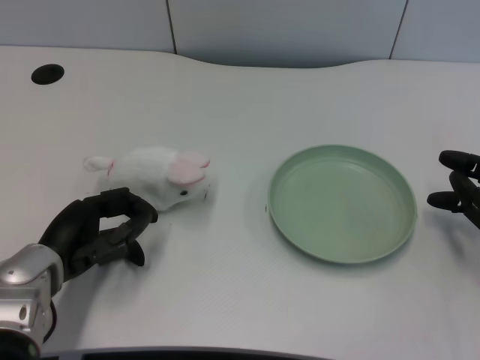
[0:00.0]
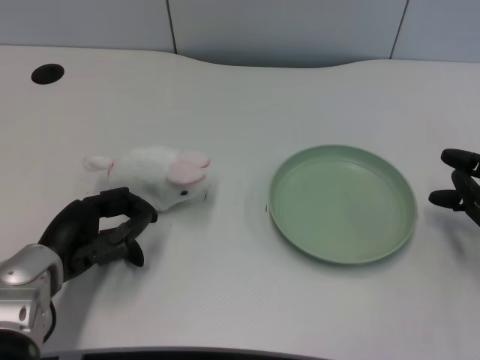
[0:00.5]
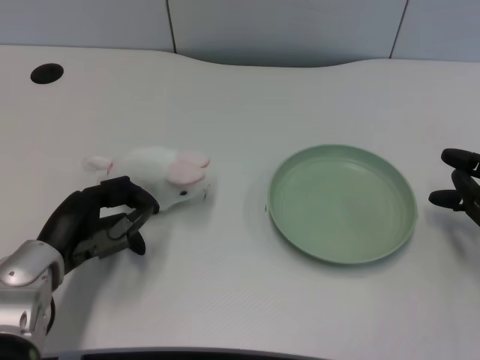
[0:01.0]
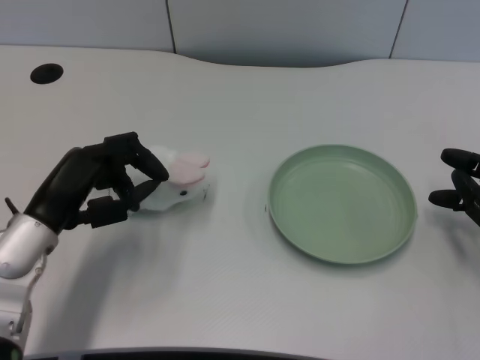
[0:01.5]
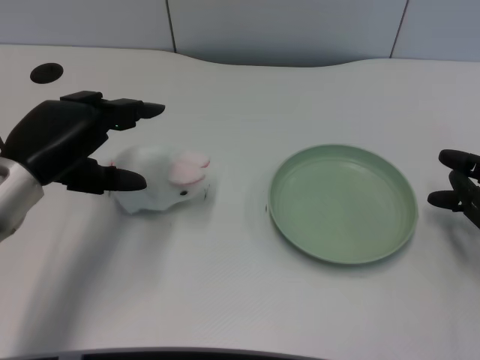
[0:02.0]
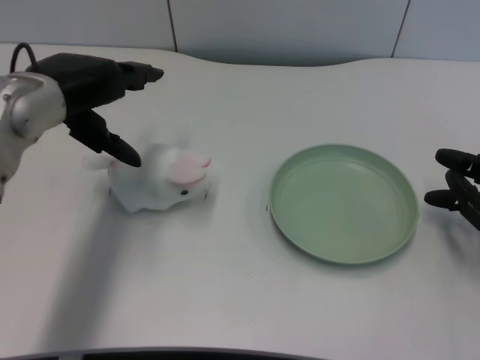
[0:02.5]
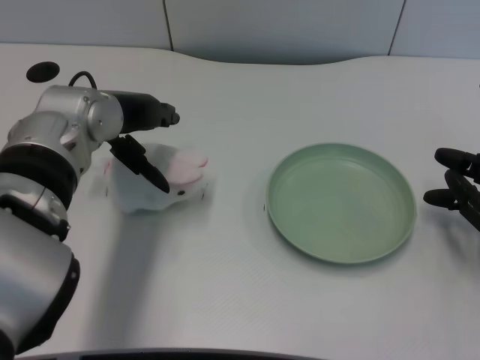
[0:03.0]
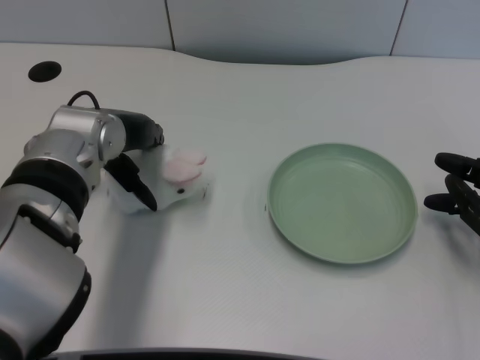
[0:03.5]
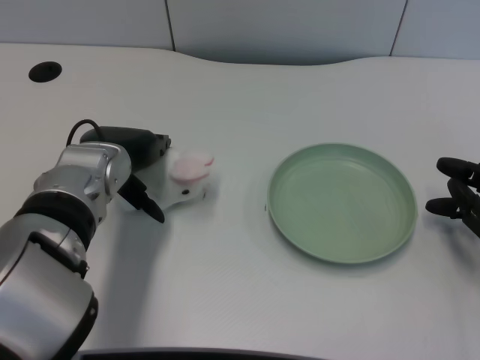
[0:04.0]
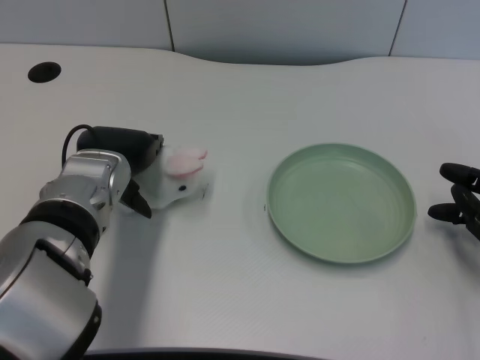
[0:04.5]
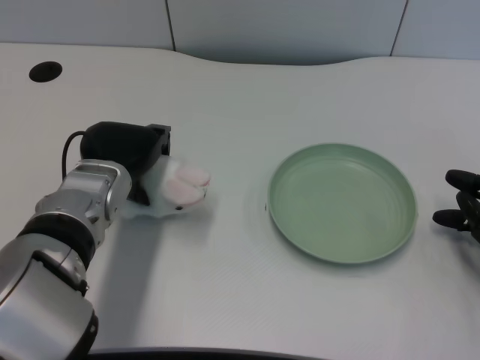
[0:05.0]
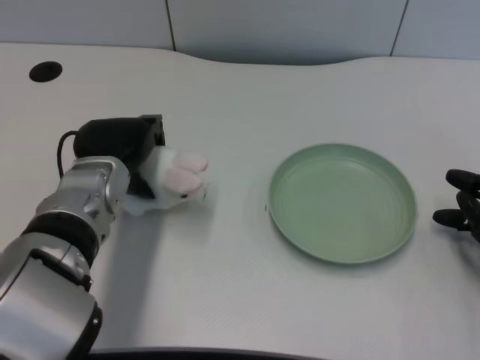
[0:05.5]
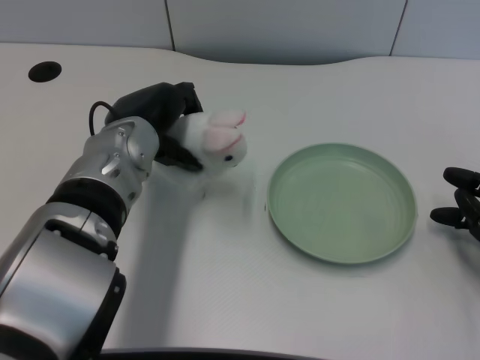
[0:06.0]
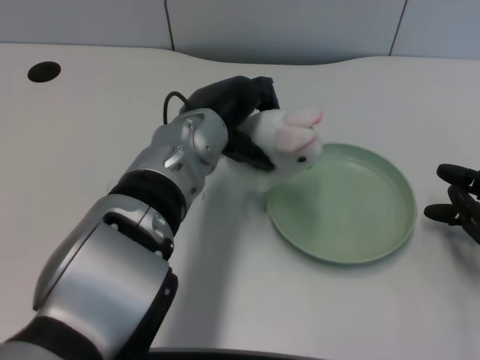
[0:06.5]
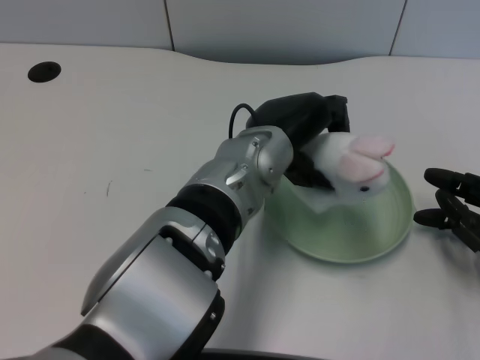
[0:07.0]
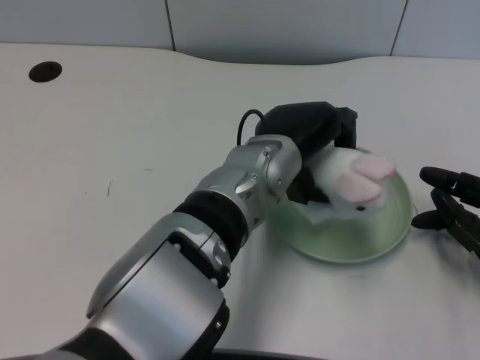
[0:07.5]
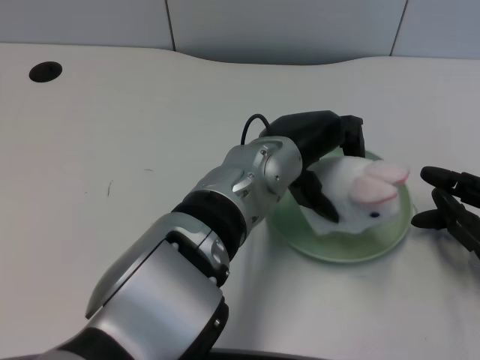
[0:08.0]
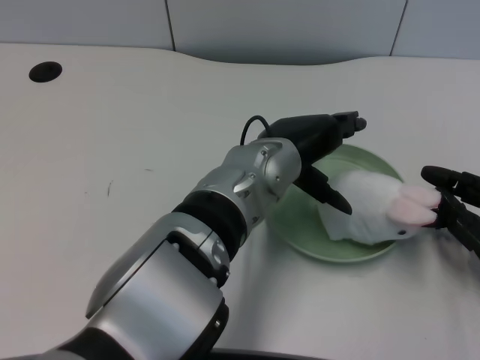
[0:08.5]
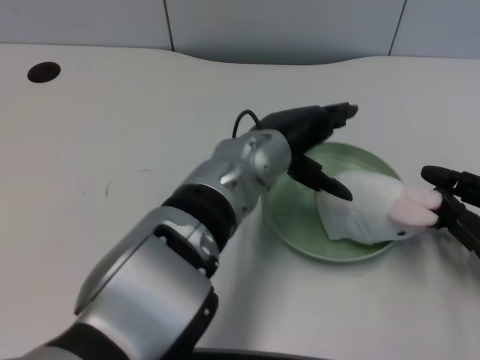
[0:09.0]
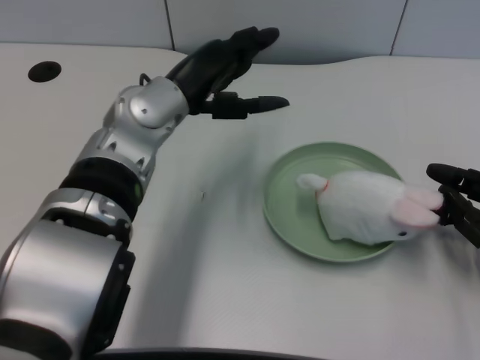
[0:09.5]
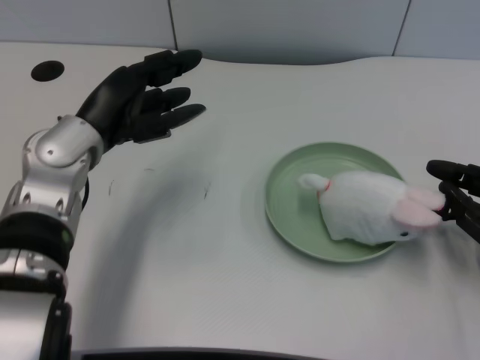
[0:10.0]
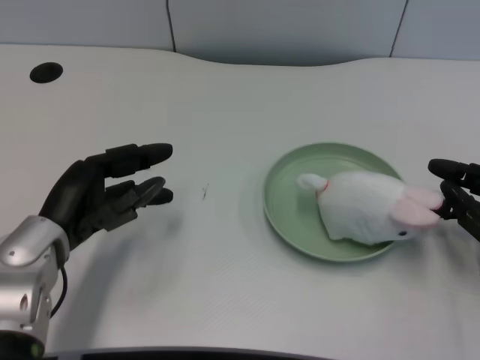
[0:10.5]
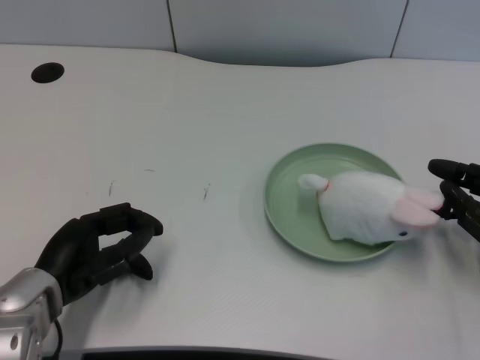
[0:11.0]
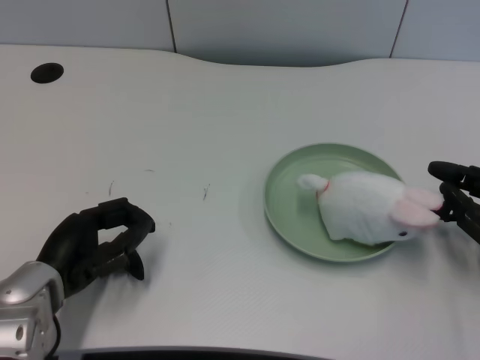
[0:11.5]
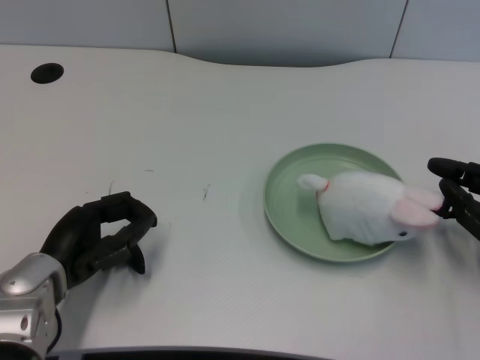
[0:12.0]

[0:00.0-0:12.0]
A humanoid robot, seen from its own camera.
Task of the whole recording: pick up the rabbit doll from the table and place it on the plate.
Step, 0:01.0 to 0:05.5: Grasp the rabbit doll with the left gripper.
Step, 0:06.0 to 0:08.0: Place the rabbit doll into the plate with the left gripper.
0:02.0 to 0:04.0: The left hand heads to the right, covering approximately 10 cm, and reaches about 5 cm upward, then returns.
0:06.0 to 0:08.0: The left hand shifts roughly 15 cm to the right.
0:08.0 to 0:10.0: The left hand shifts roughly 20 cm to the left.
0:10.0 to 0:12.0: The left hand heads downward and backward, covering roughly 15 cm.

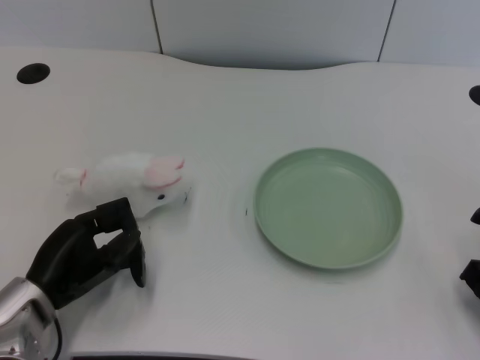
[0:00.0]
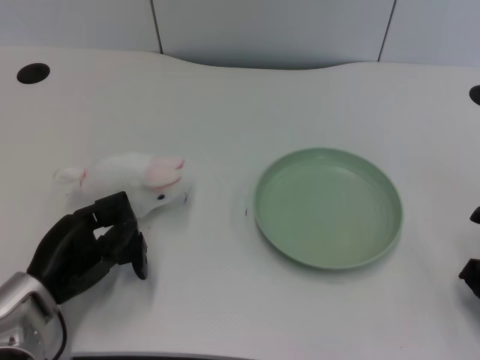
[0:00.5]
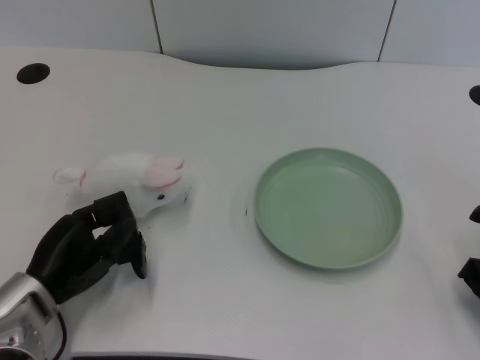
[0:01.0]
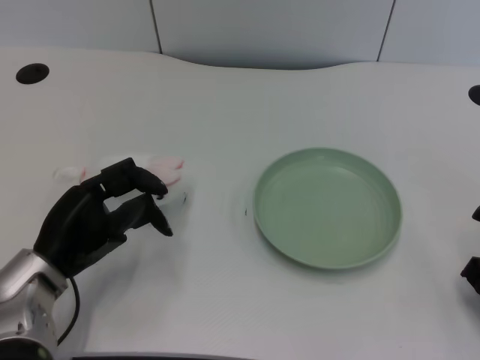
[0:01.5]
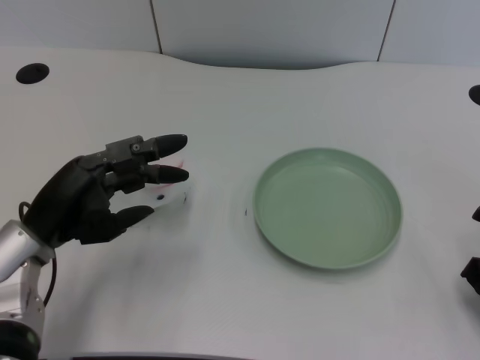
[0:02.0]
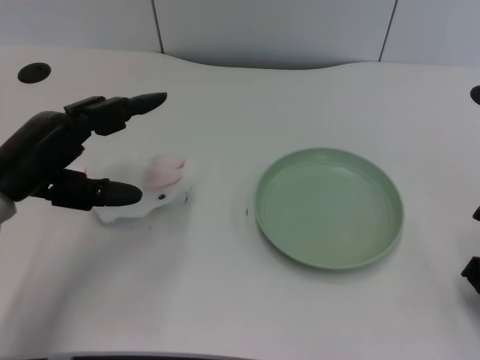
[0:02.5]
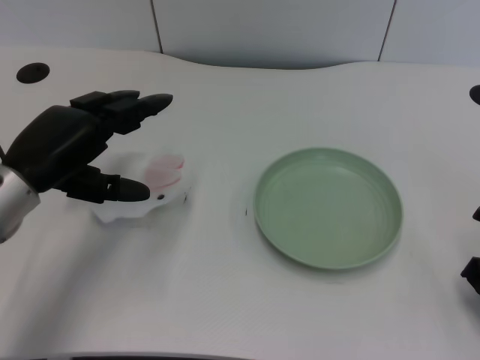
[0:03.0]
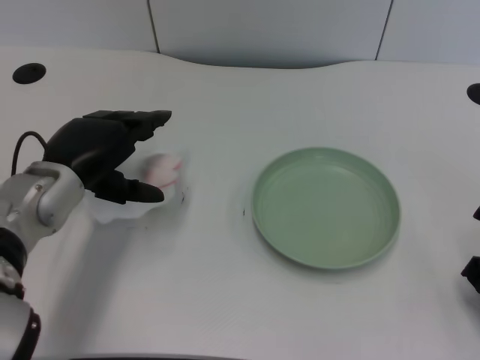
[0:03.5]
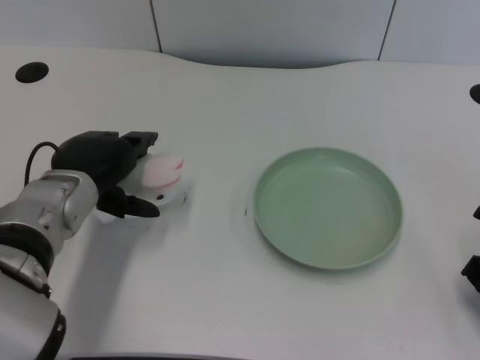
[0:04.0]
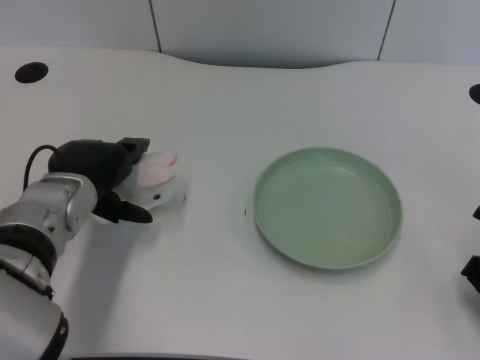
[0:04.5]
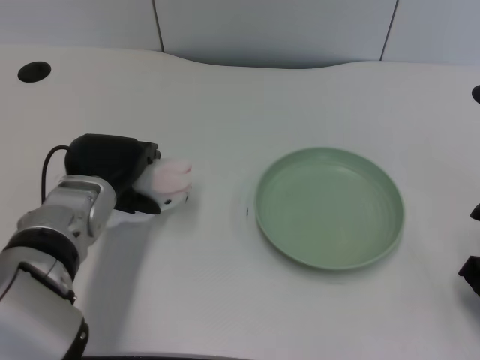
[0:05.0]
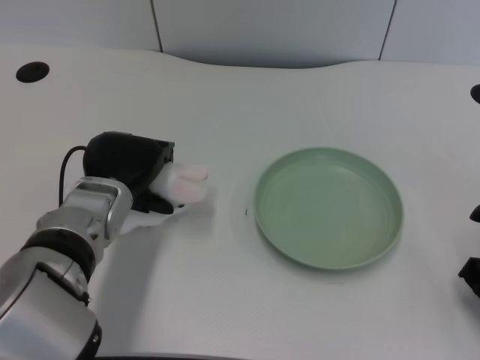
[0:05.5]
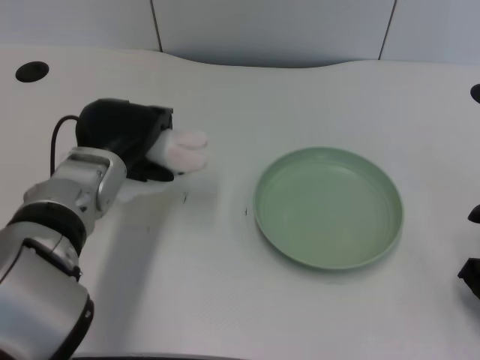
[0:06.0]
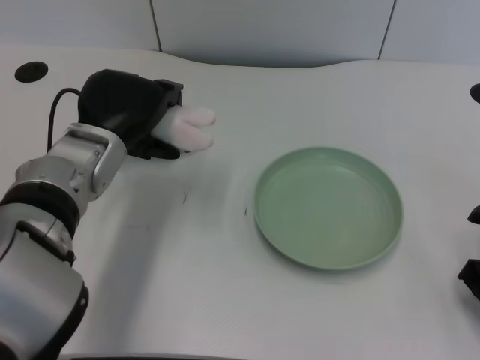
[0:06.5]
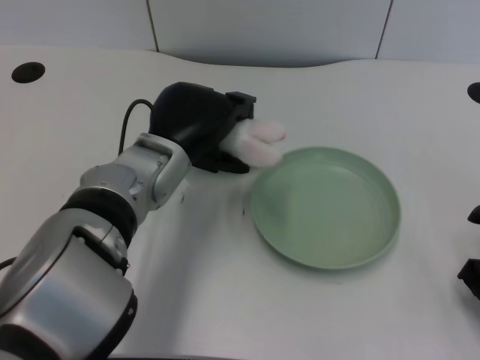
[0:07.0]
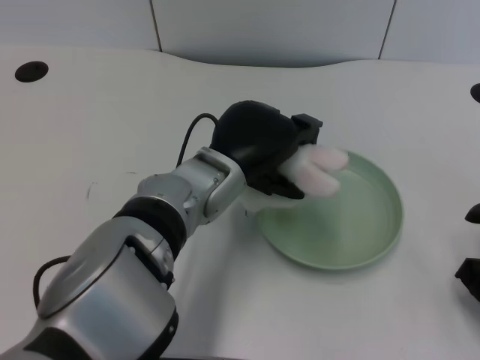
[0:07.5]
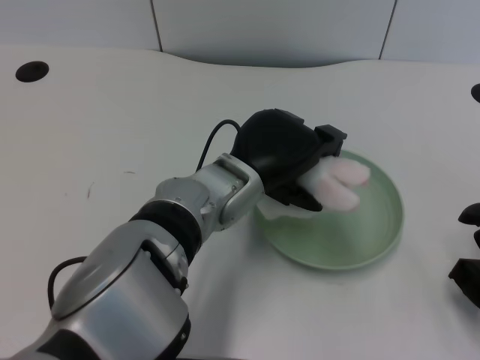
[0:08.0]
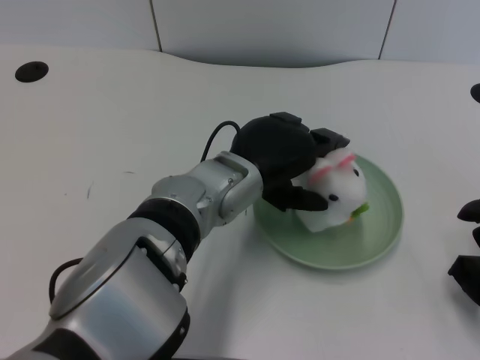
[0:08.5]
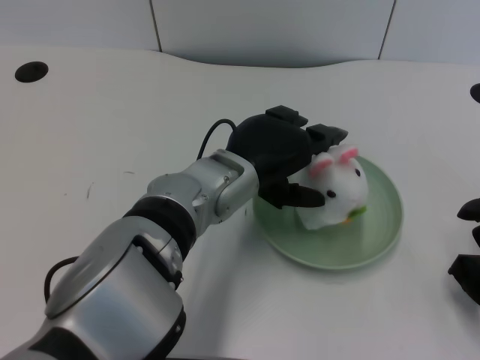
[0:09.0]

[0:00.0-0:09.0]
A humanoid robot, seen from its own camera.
Task of the whole recording: pick up the rabbit doll from the table and place it on the plate.
Step, 0:01.5 to 0:06.0: Grasp the rabbit doll with the left gripper.
0:02.0 to 0:04.5: The left hand is displaced forward and to the right by roughly 5 cm.
0:04.5 to 0:07.0: The left hand goes roughly 10 cm to the right.
0:07.0 to 0:09.0: The left hand moves to the right, approximately 5 cm.

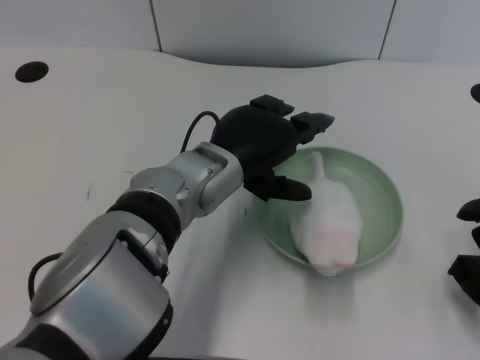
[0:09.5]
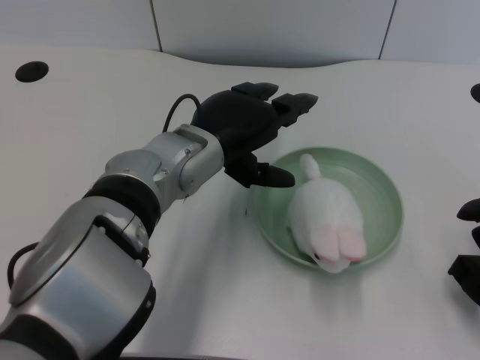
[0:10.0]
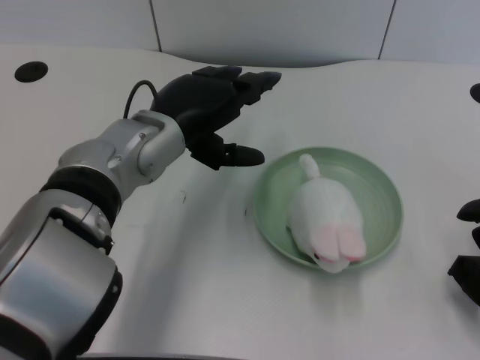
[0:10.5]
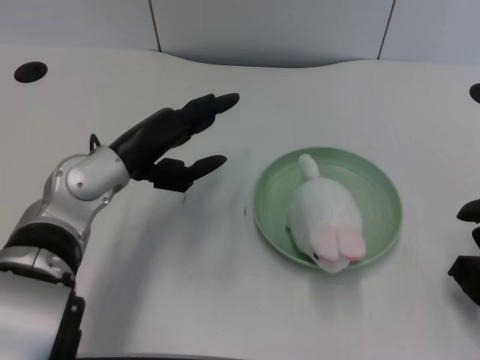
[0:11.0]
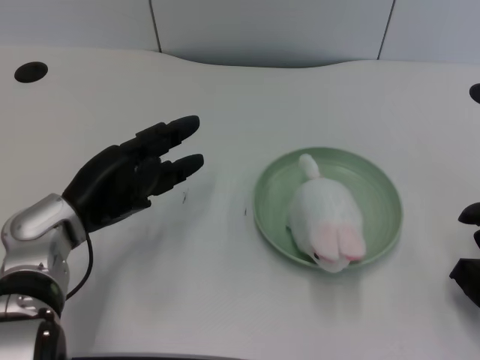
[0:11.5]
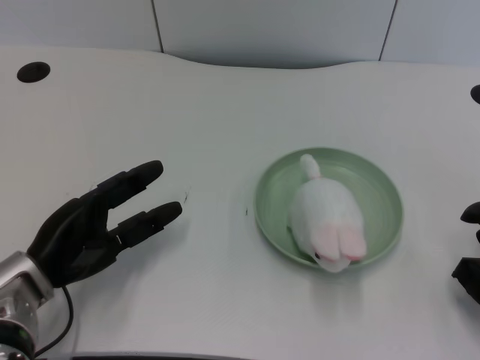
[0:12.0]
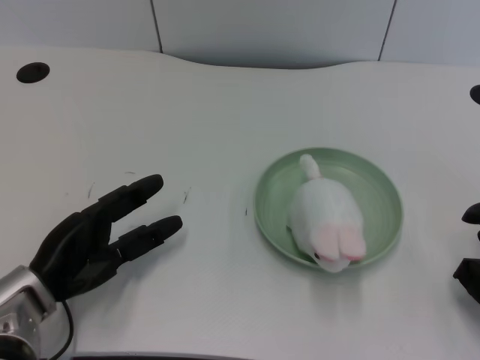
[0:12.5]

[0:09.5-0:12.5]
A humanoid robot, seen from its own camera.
Task of the whole recording: pick up the rabbit doll from the table and place it on the plate.
0:09.5 to 0:11.0: The left hand moves to the left, some 10 cm.
0:11.0 to 0:12.5: The left hand moves downward, to the left and backward, approximately 15 cm.

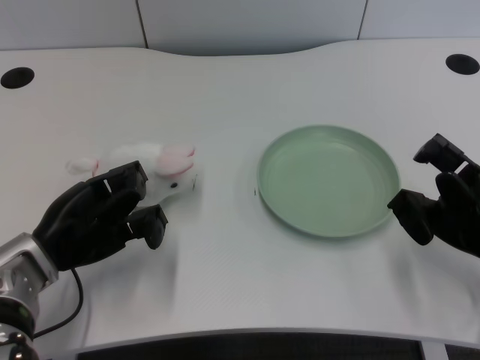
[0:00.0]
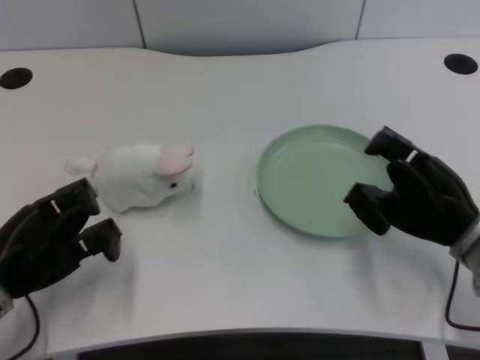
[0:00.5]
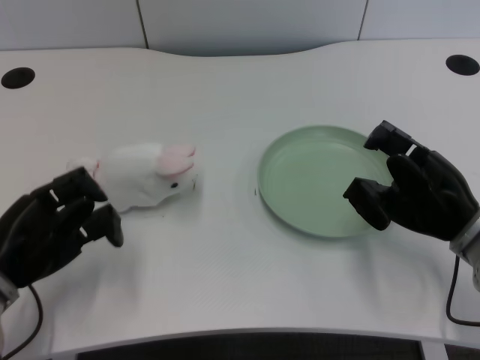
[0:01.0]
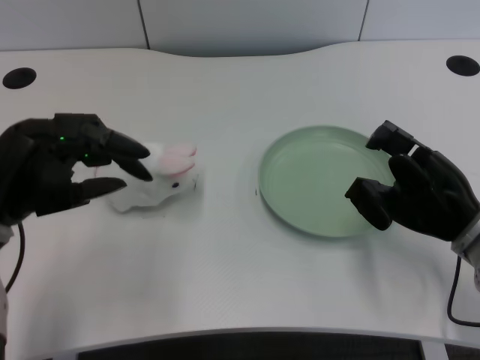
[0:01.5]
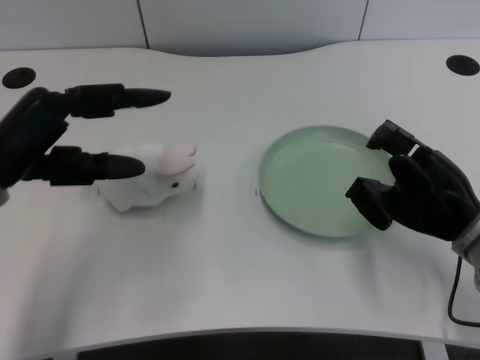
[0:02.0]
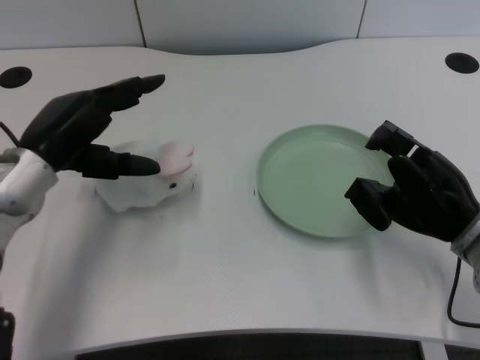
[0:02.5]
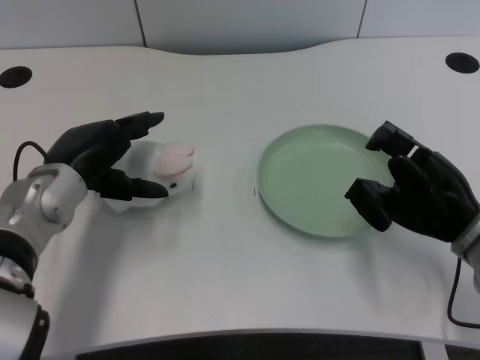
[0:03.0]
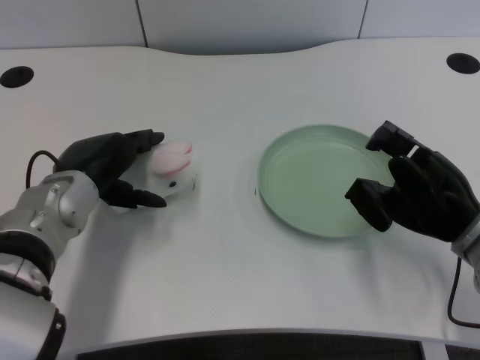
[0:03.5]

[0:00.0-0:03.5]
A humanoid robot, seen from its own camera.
Task of the whole recording: pick up the rabbit doll from the table and place it on the plate.
0:02.0 to 0:03.5: The left hand is displaced to the right and downward by some 10 cm.
